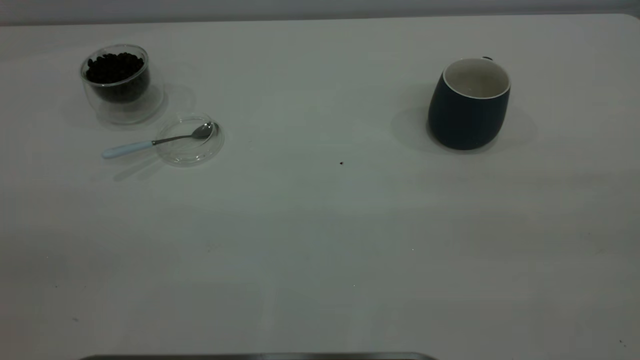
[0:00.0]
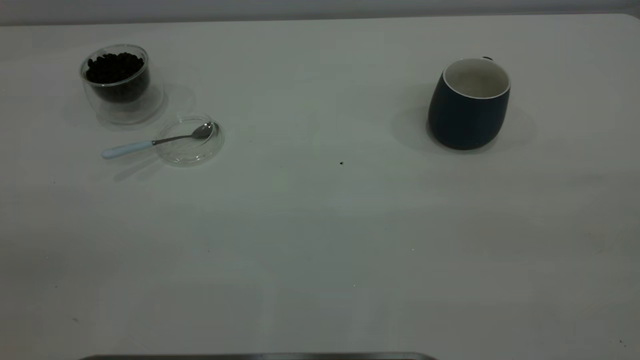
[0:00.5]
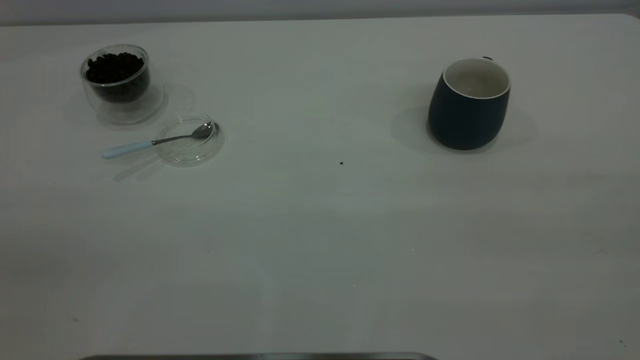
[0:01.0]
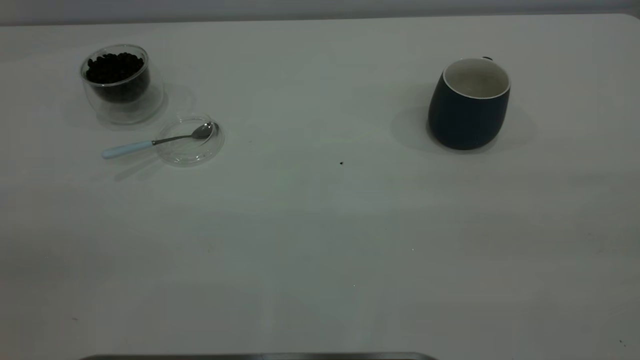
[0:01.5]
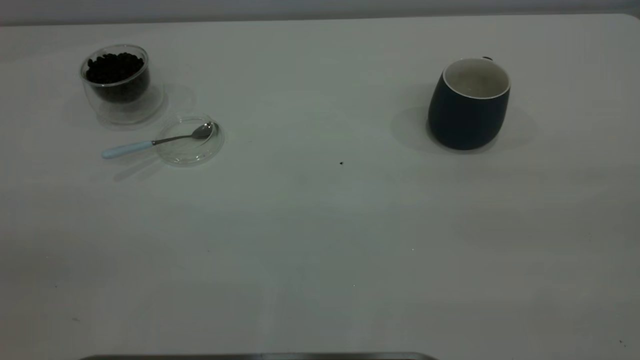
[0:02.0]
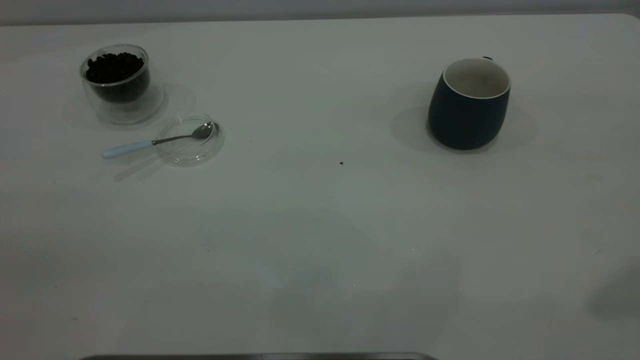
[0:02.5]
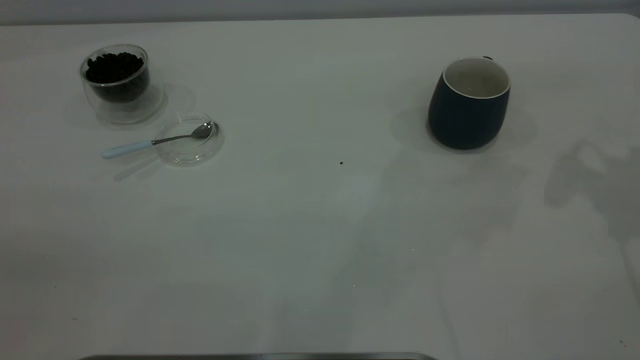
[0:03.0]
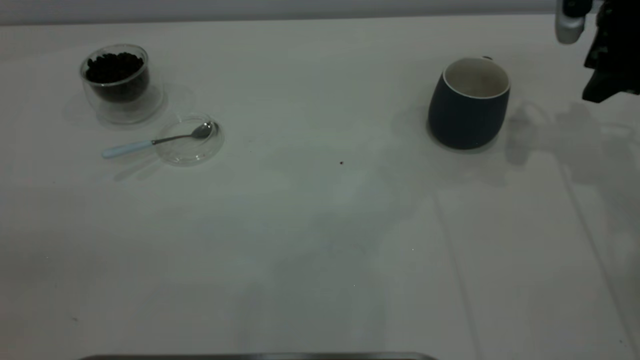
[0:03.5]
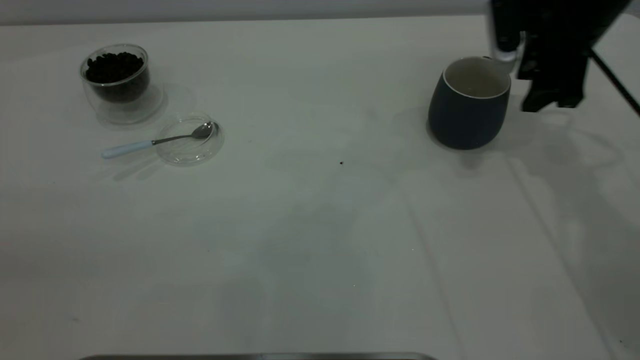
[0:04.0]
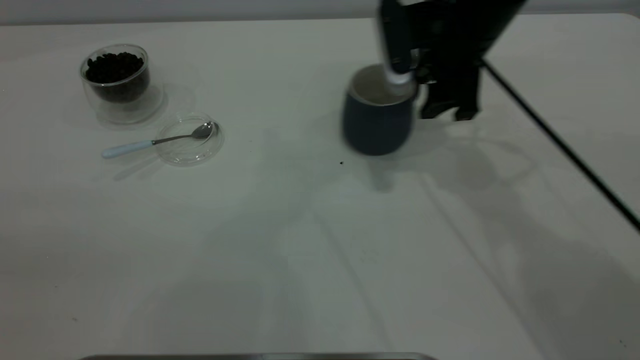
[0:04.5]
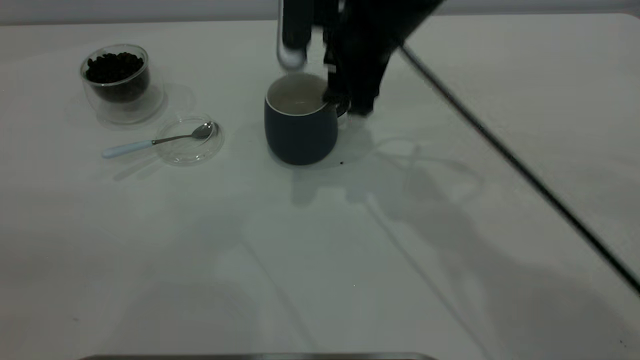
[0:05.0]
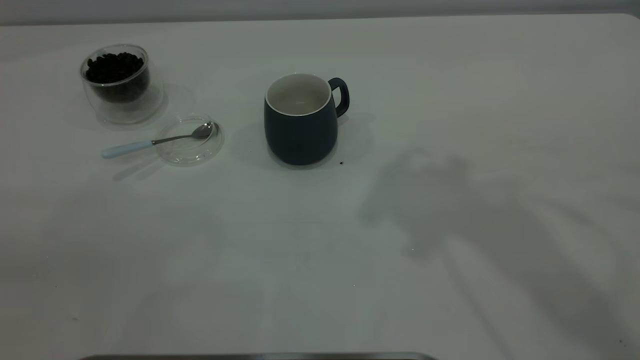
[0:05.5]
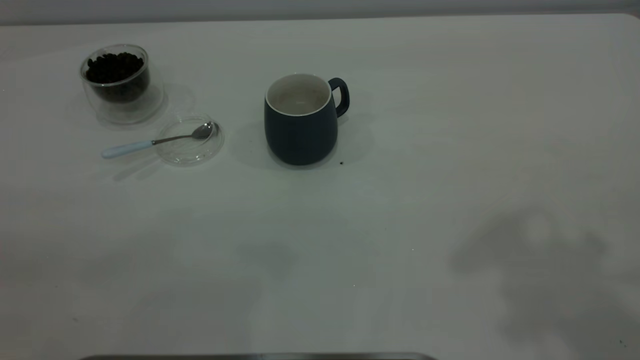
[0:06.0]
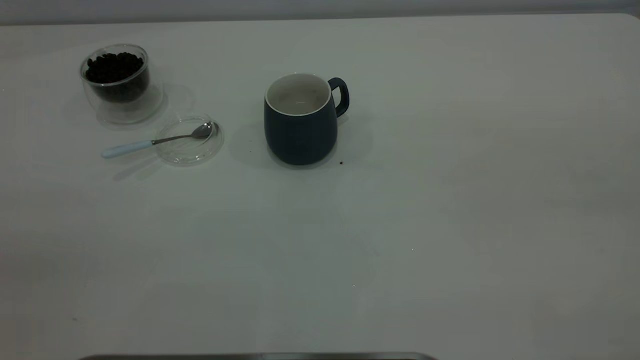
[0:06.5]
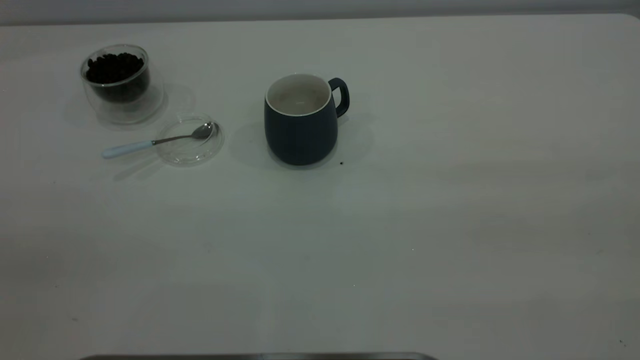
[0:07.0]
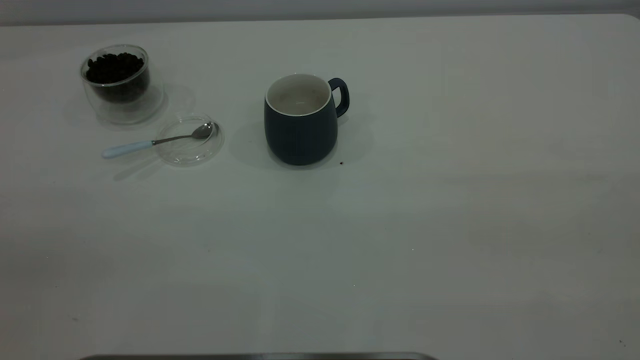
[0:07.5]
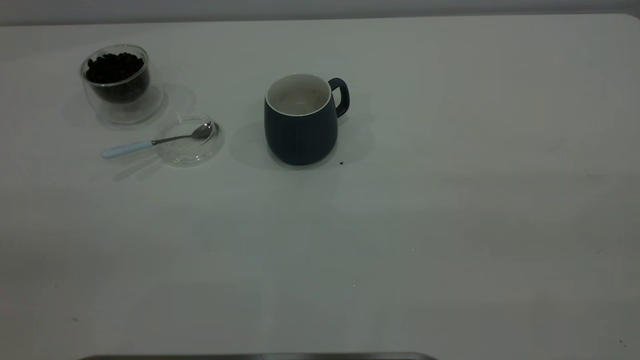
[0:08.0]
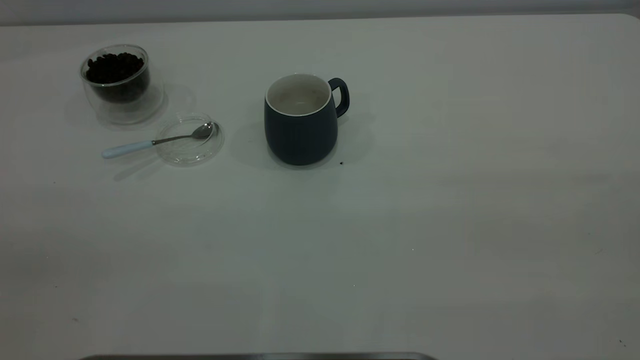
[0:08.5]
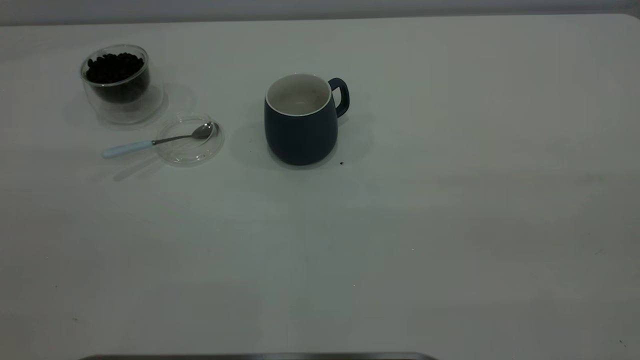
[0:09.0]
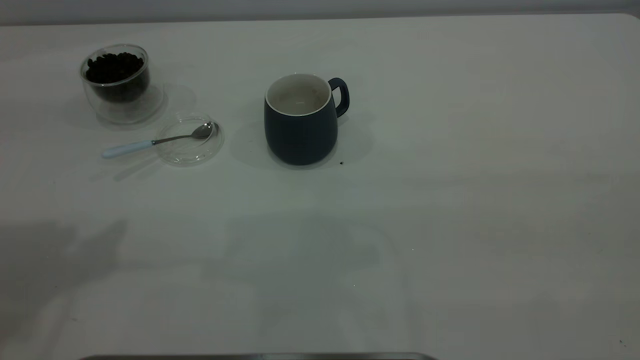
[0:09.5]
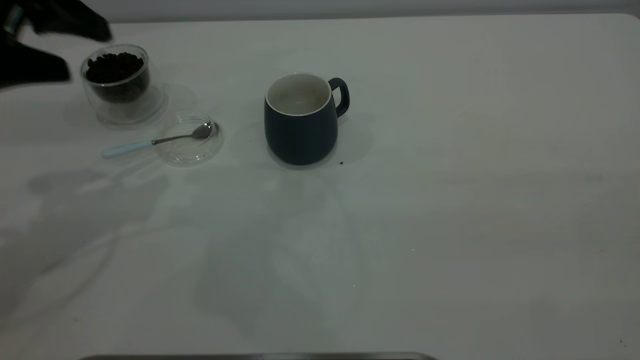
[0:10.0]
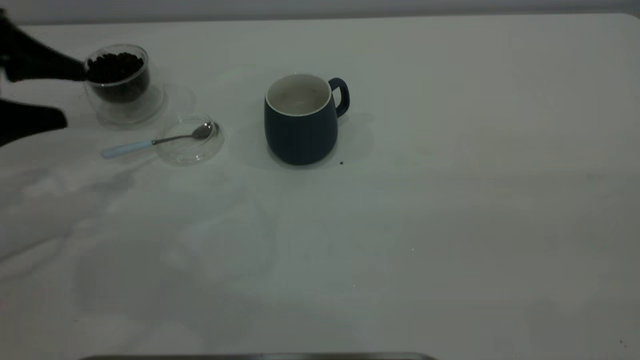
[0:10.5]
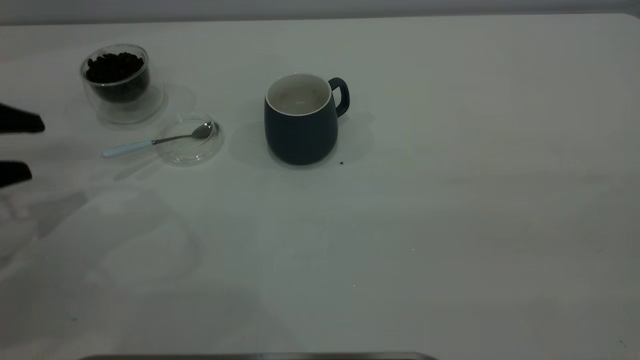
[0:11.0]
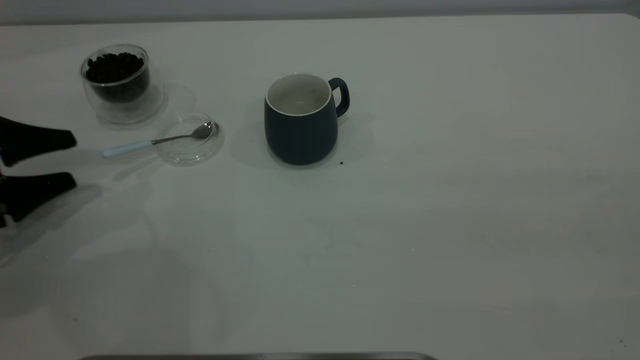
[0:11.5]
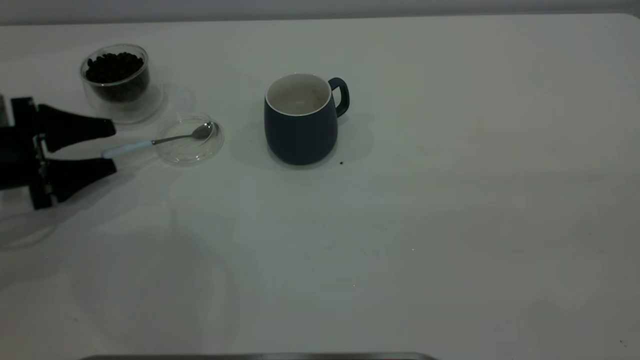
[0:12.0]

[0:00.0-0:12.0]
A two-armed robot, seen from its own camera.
Task of the whole recording: the right gripper place the grey cup in the center of the table, the left gripper take the blue spoon from the cup lid and scoop out the coffee beans from the coffee cup and put them into the grey cup, the left gripper put the spoon back into the cup lid.
Step, 0:00.0 to 0:05.0: Move the cup to the center of view.
0:02.0 to 0:04.0: The right gripper moves forward and downward, some 50 cm.
0:04.0 to 0:06.0: The right gripper moves upward and backward, roughly 40 cm.
0:08.0 to 0:10.0: The left gripper heads forward and downward, covering about 35 cm.
0:10.0 to 0:12.0: The left gripper shifts about 20 cm downward and to the left.

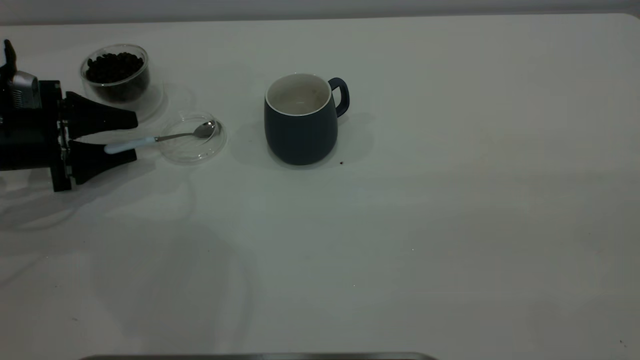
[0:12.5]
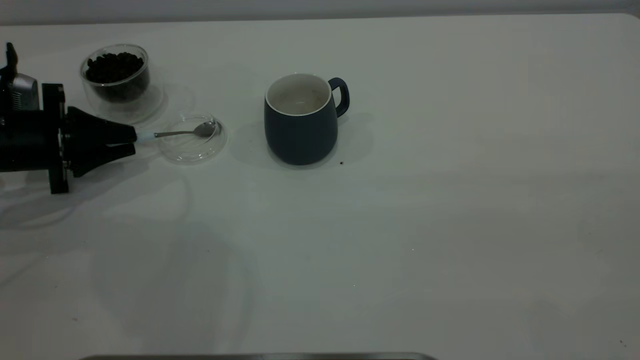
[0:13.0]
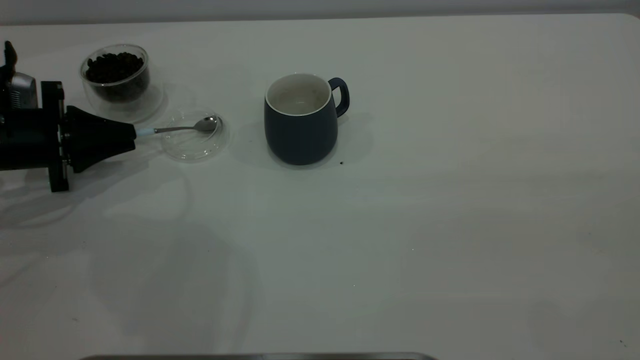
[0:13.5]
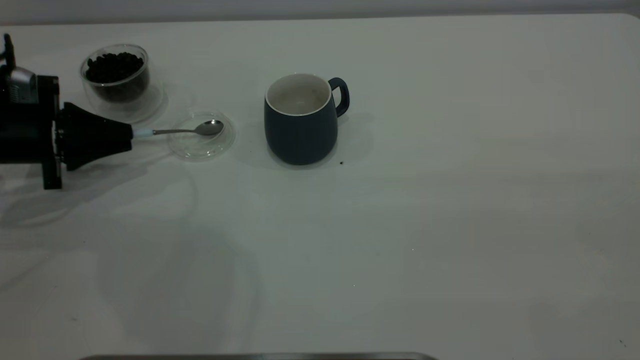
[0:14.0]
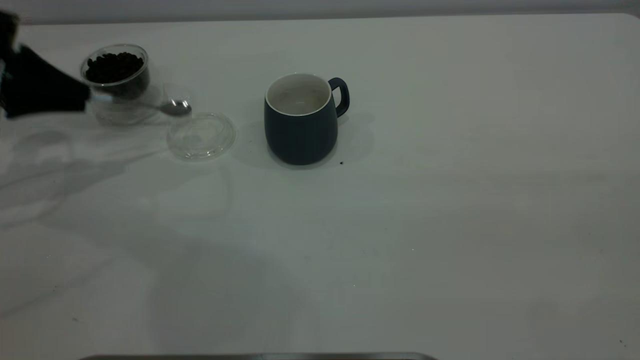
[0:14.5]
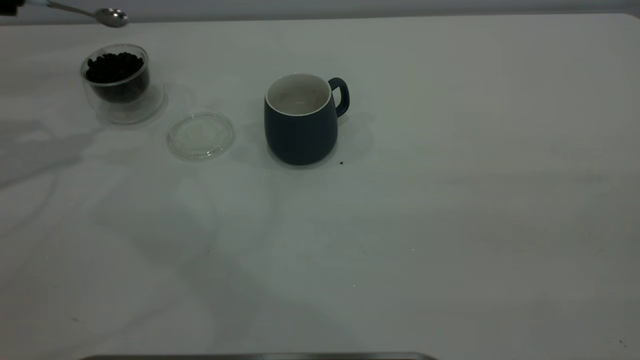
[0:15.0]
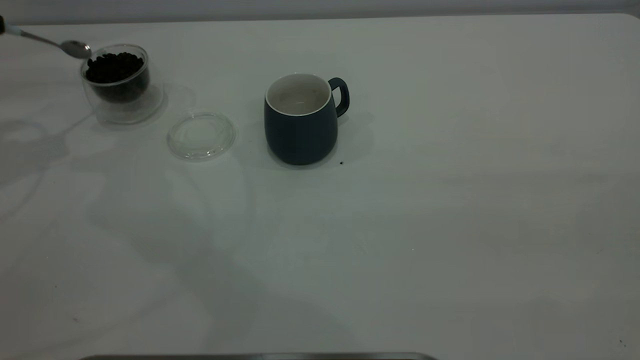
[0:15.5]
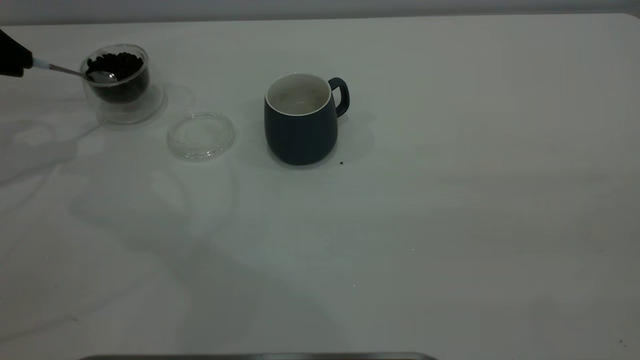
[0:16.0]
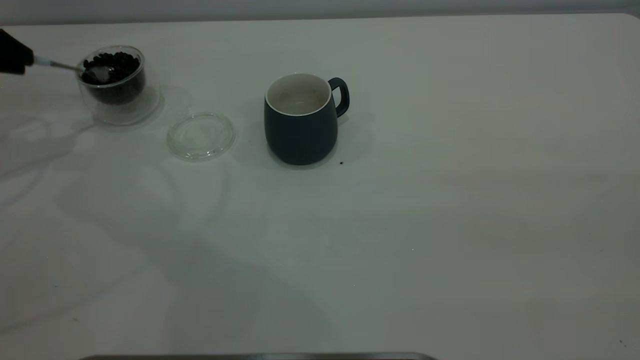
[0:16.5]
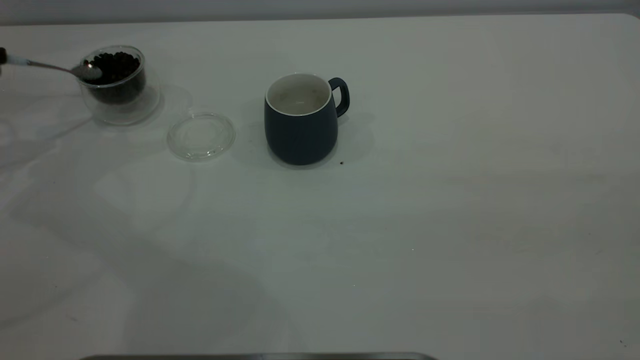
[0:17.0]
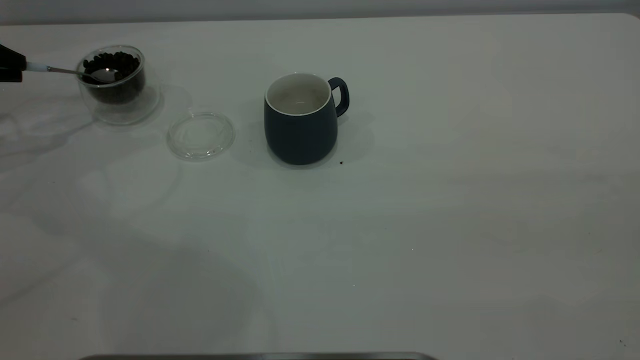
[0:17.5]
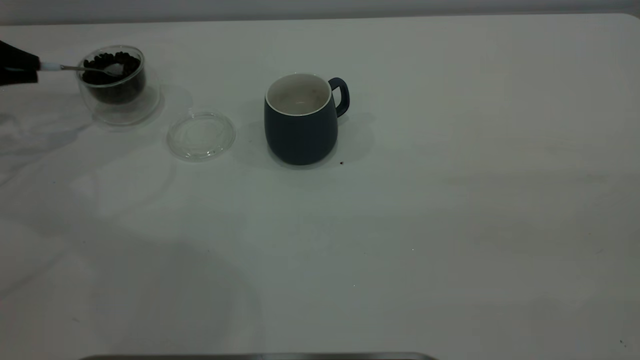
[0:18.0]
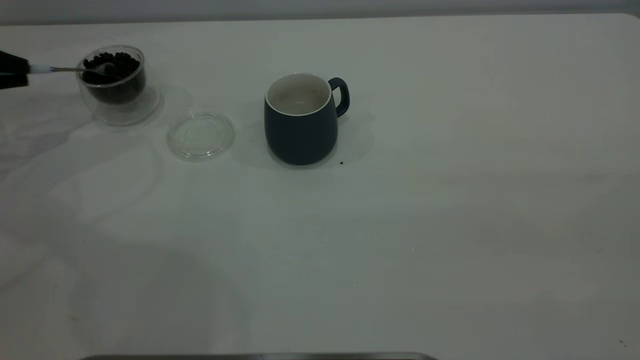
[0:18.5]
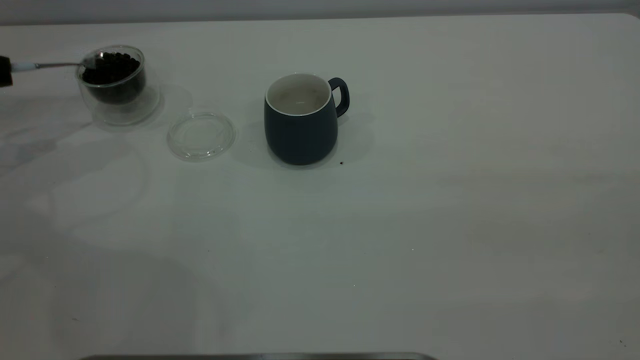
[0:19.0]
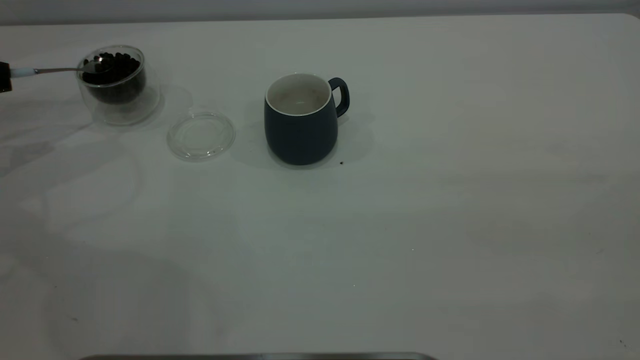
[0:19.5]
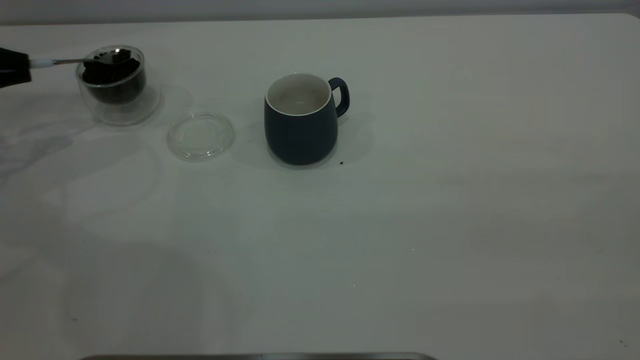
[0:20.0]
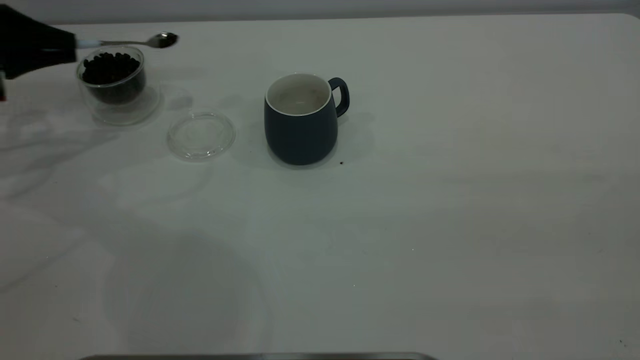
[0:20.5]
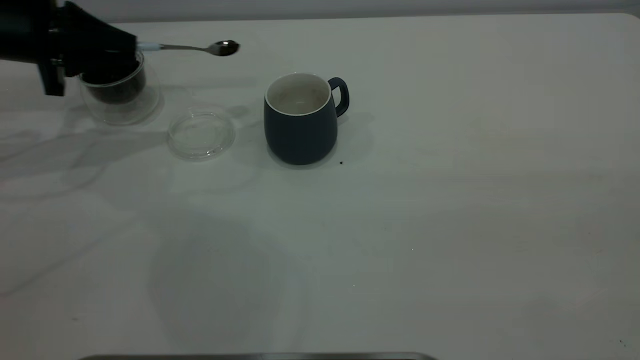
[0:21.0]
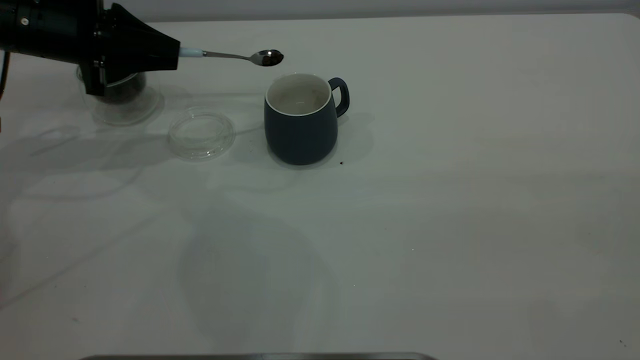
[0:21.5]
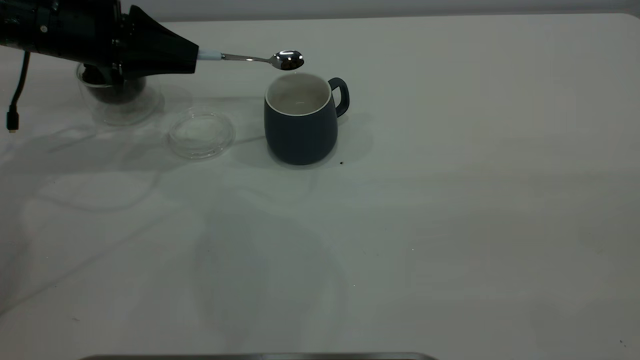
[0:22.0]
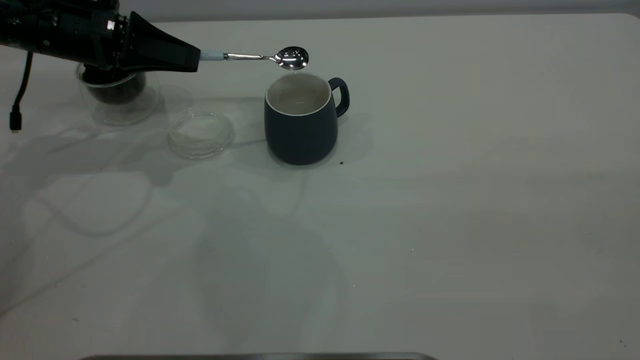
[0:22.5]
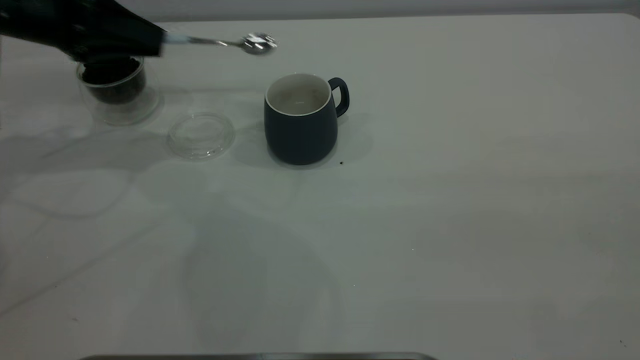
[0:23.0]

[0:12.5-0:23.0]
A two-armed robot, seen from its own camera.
Task of the whole recording: the right gripper place the grey cup in the center of the table, the left gripper take the blue spoon from the cup lid and scoop out the coffee beans from the coffee cup and put them into the grey cup, the left gripper put the spoon back into the cup lid.
Step, 0:12.5 to 0:14.5: Pick up the spoon.
Step, 0:15.0 to 0:22.5: Scoop a spoonful of beans into the cup.
0:12.5 to 0:14.5: The left gripper travels upward by about 10 cm, and closes up.
0:14.5 to 0:16.5: The left gripper moves approximately 5 cm.
0:16.5 to 0:19.0: The left gripper is displaced downward and to the left by some 10 cm.
0:19.0 to 0:21.0: The left gripper moves to the right, roughly 15 cm.
